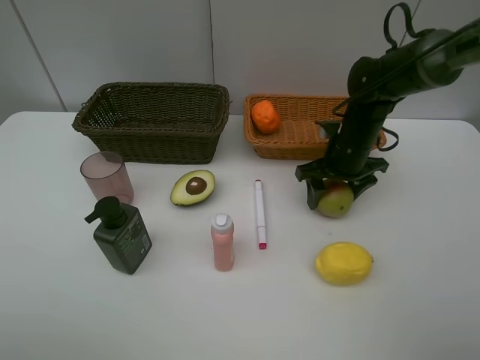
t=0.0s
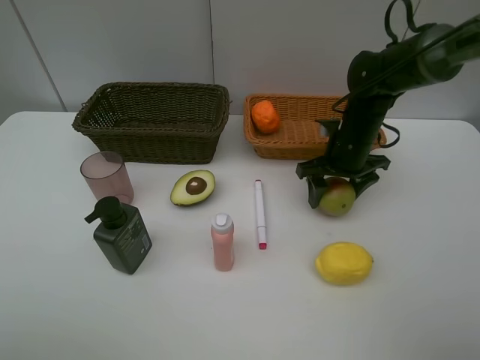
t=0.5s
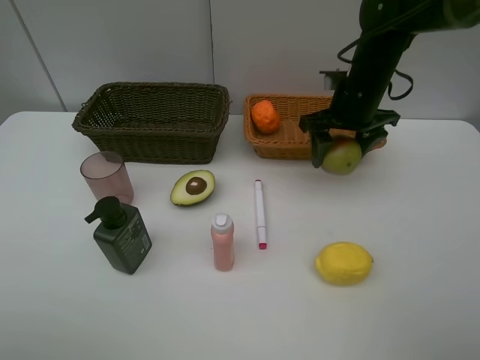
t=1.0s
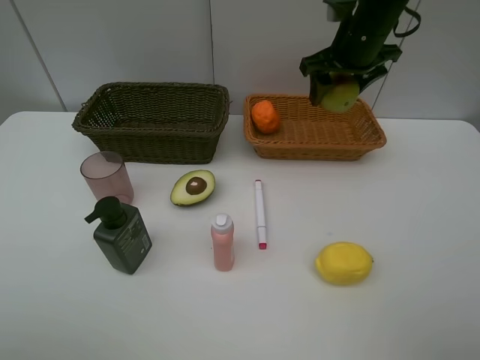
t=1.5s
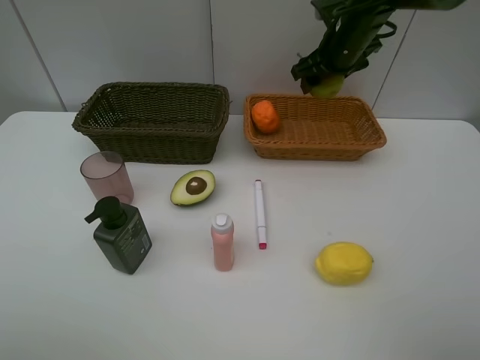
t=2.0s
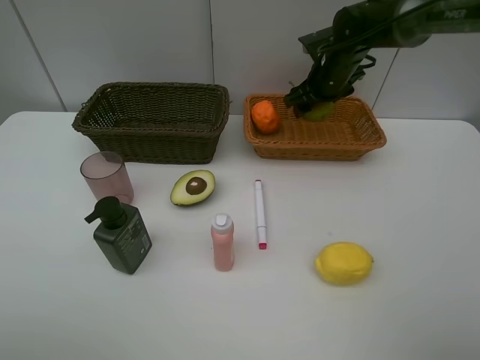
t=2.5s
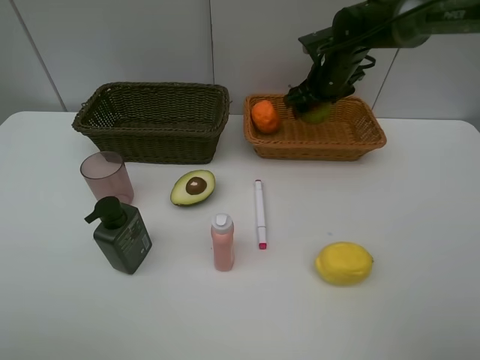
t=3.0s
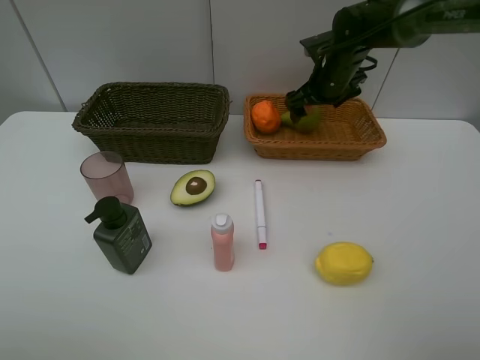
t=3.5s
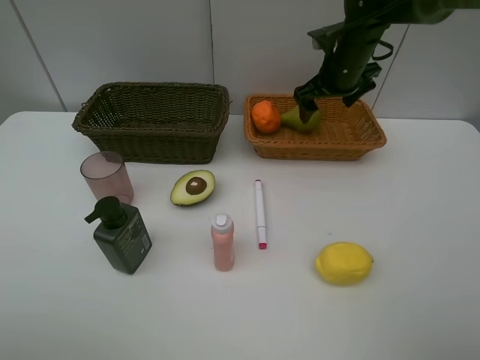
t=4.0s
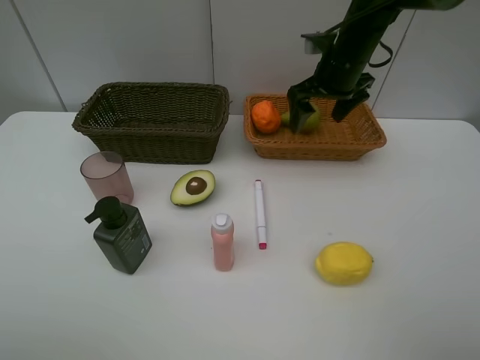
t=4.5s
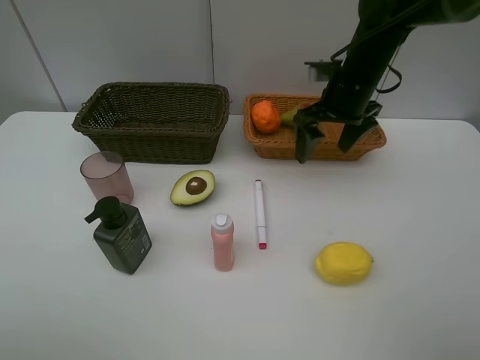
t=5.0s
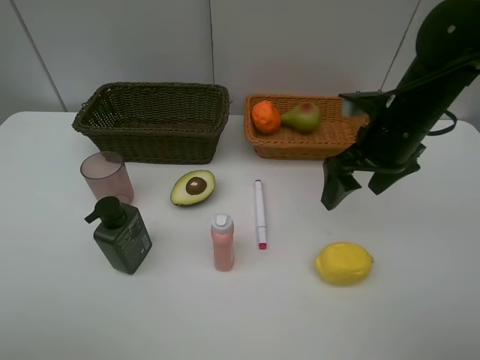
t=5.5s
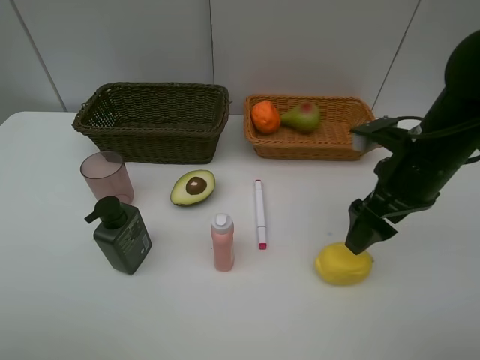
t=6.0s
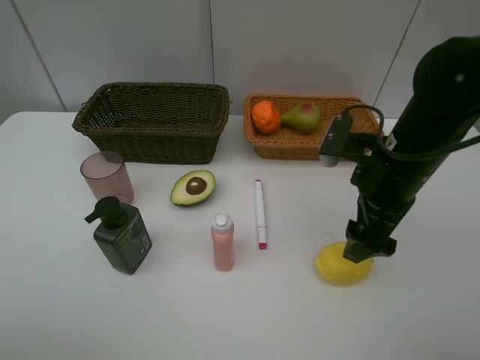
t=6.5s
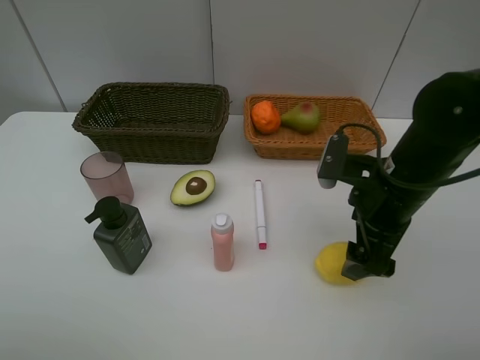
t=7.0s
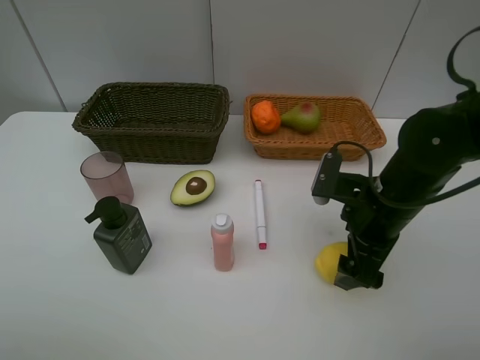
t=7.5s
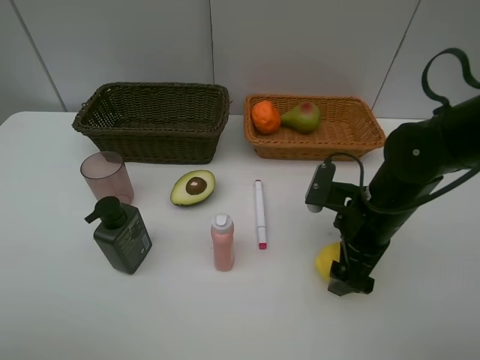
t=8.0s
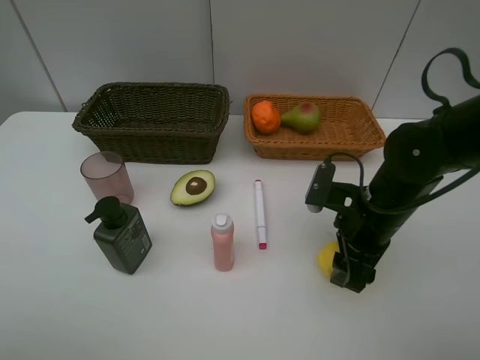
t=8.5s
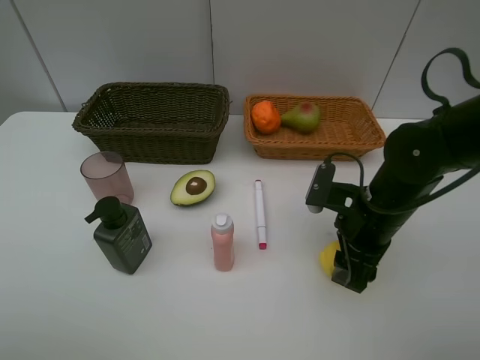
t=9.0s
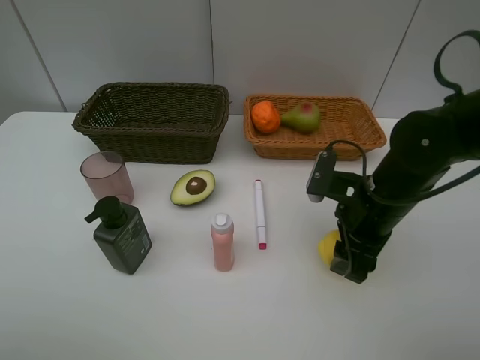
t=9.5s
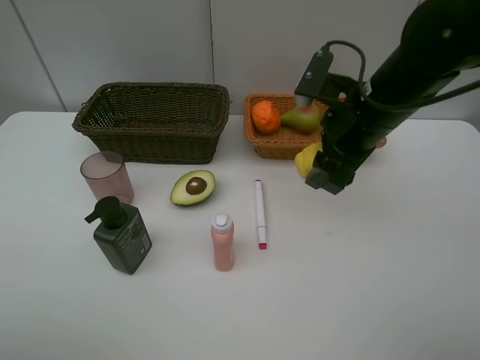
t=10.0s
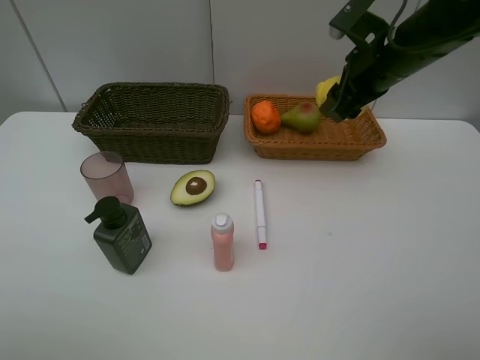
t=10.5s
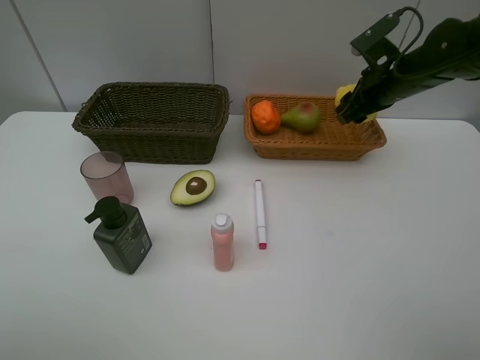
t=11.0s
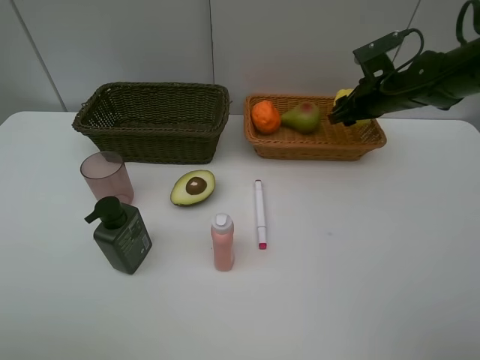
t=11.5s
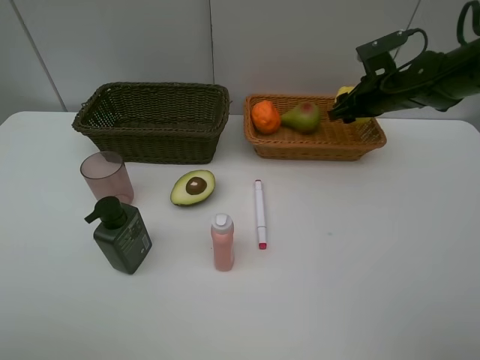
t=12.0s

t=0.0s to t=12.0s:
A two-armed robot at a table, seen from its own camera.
Task of the whole recording: Place multiple objects separately in different baskets.
Step, t=1.0s to t=3.5s: Place the pear in the light basket with right gripper.
Step, t=4.0s to t=9.5s: Pick up the lemon with right gripper.
t=0.0s to t=2.0s: The right gripper goes about 15 cm upward and forward.
t=2.0s to t=4.0s: There are only small adjustments of the grippers.
t=4.0s to t=6.0s: The right gripper goes approximately 20 cm backward.
t=6.0s to t=8.0s: The right gripper goes approximately 5 cm downward.
t=8.0s to t=10.0s: The right gripper heads upward and forward, covering some 15 cm, and closes its fingers.
t=10.0s to t=12.0s: The right gripper is displaced forward, to the right and downward by some 20 cm.

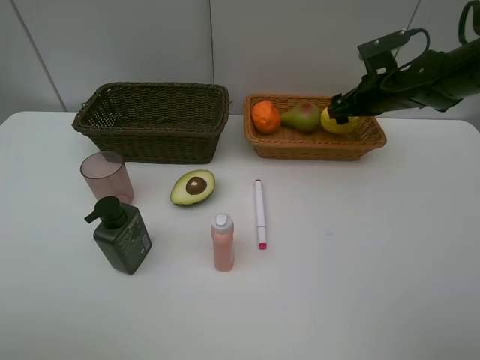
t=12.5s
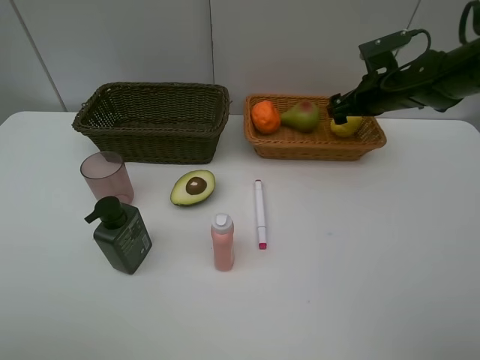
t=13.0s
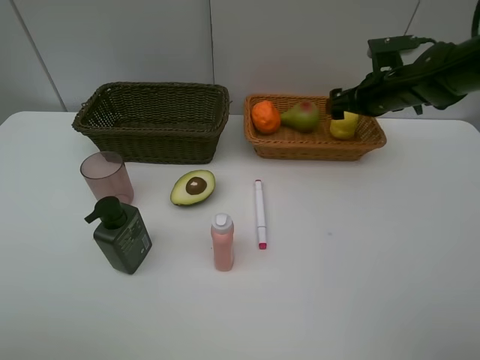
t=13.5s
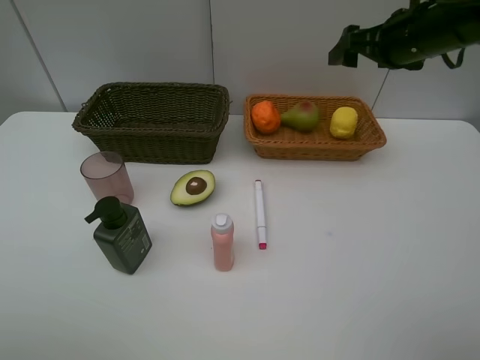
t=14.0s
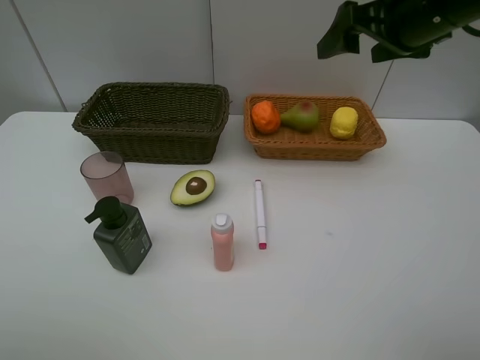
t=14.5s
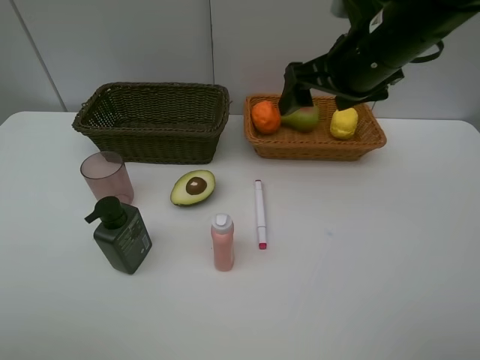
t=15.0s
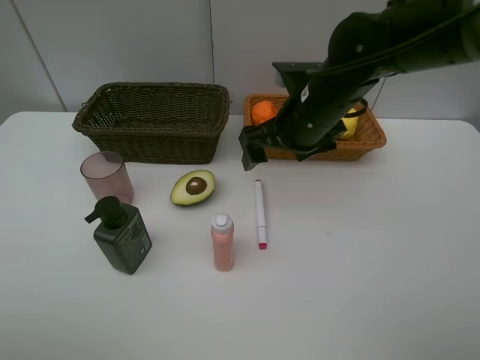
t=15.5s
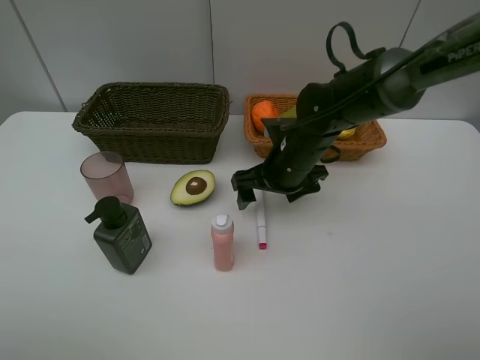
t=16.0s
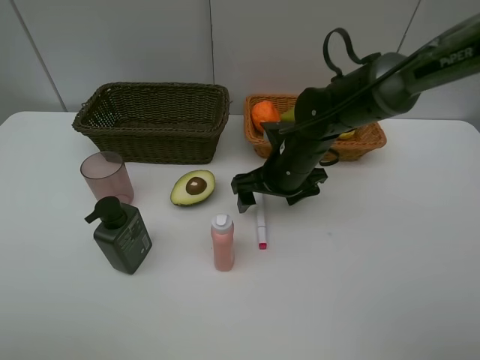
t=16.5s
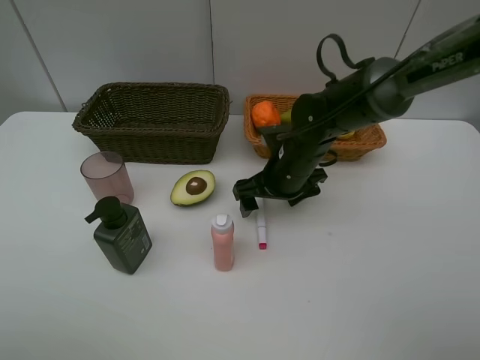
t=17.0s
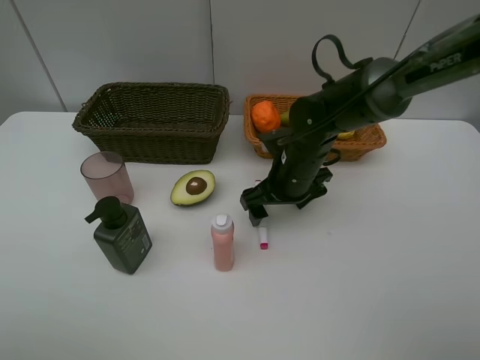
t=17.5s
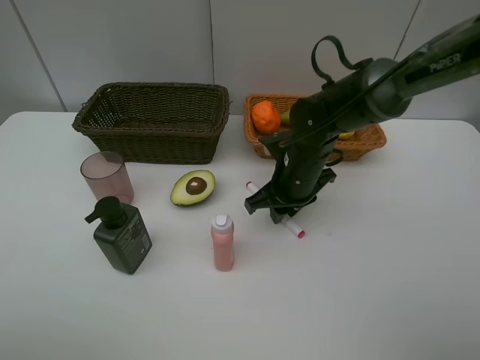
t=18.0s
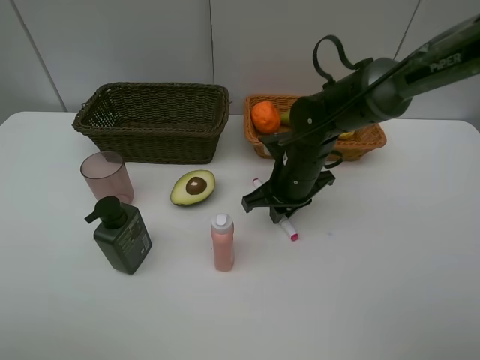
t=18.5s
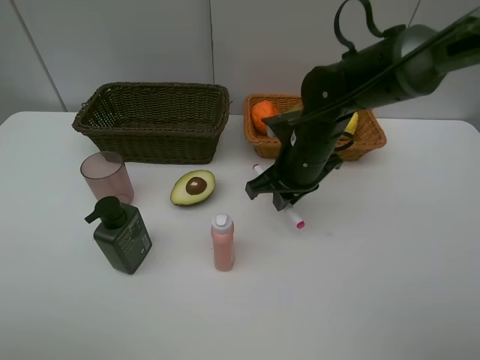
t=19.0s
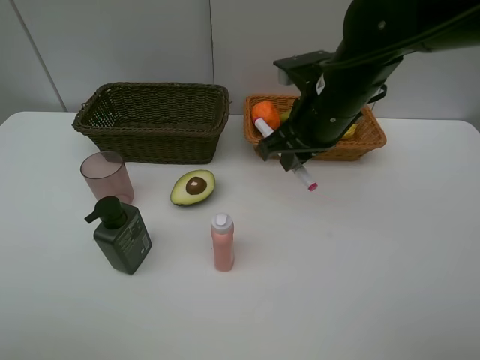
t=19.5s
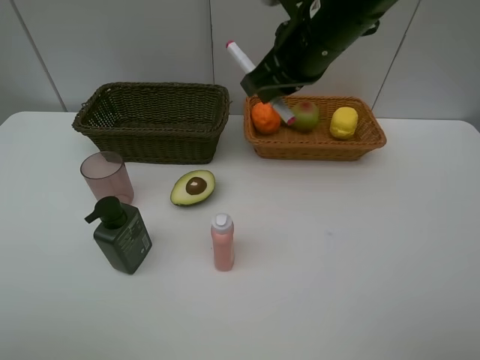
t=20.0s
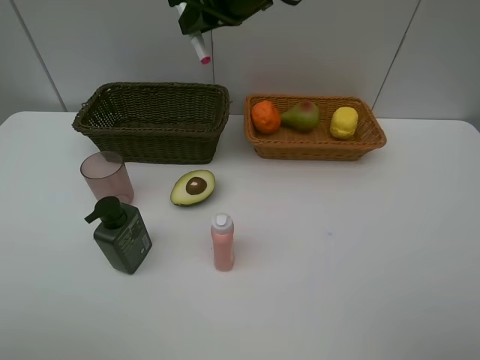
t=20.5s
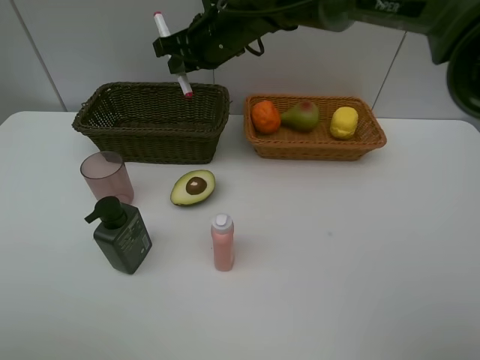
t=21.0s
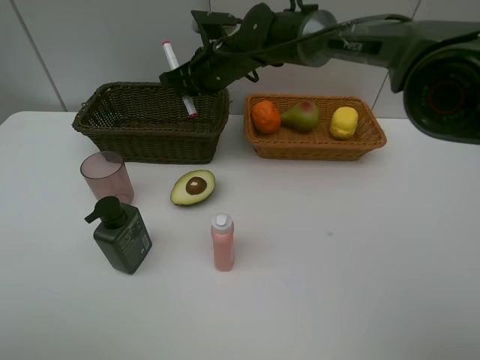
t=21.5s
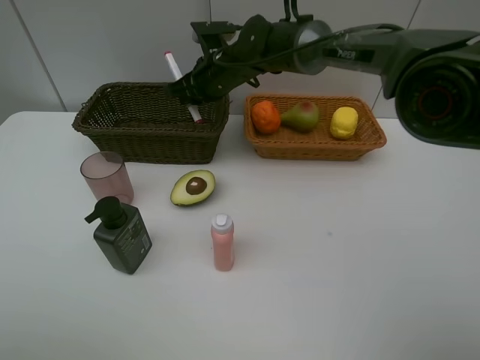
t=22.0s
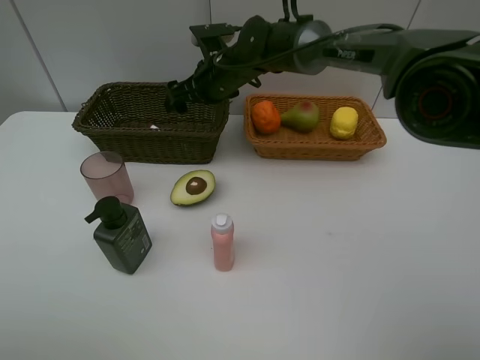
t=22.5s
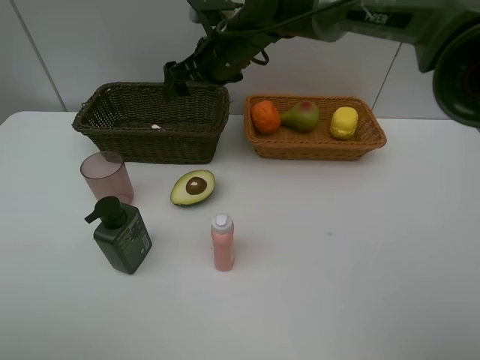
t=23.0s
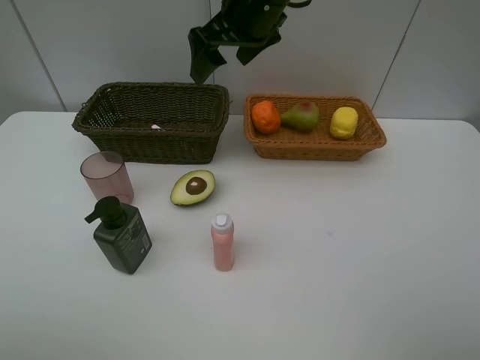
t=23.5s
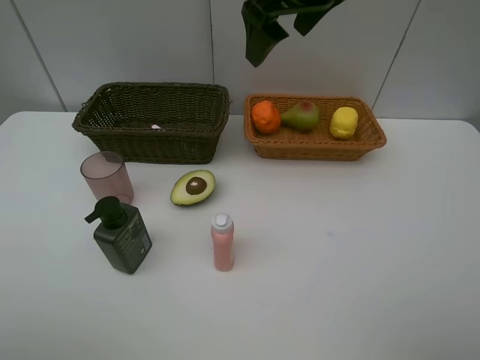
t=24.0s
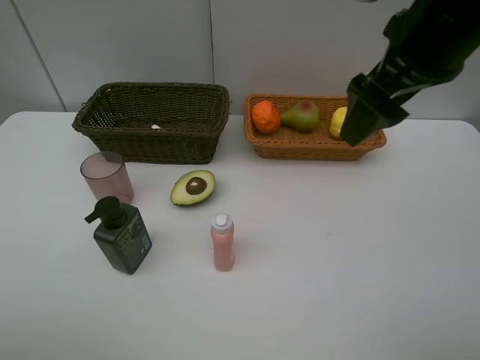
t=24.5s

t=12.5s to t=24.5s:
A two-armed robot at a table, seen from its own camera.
Task of the whole recording: Place multiple objects separately in different baskets.
Step, t=13.0s to t=19.0s: Pick up the red marker with right gripper.
Step, t=19.5s to t=22.5s: Place the red marker in the dark basket with right gripper.
t=12.5s to t=14.5s: The right gripper goes roughly 20 cm upward and backward.
t=14.5s to t=16.5s: The right gripper shifts roughly 25 cm downward and to the left.
t=16.5s to t=18.5s: The right gripper closes up.
t=18.5s to t=20.5s: The right gripper travels upward by some 25 cm.
t=20.5s to t=22.5s: The right gripper shifts about 15 cm downward and forward, and opens up.
t=22.5s to t=24.5s: The right gripper is displaced backward, to the right and upward by about 35 cm.

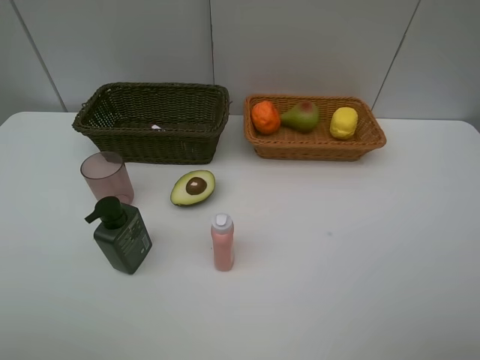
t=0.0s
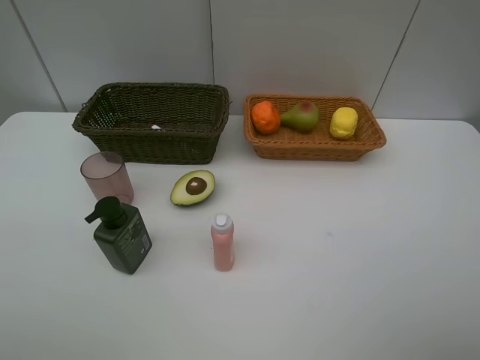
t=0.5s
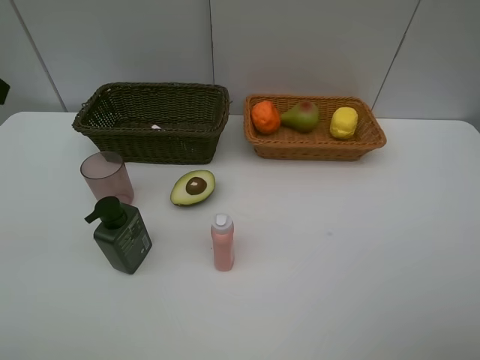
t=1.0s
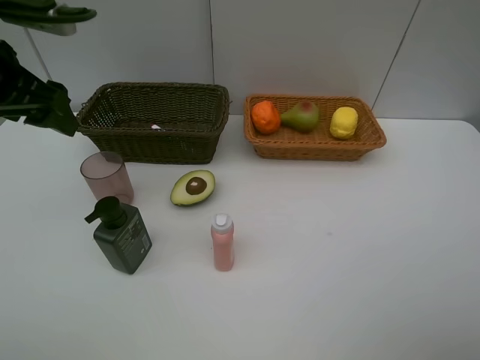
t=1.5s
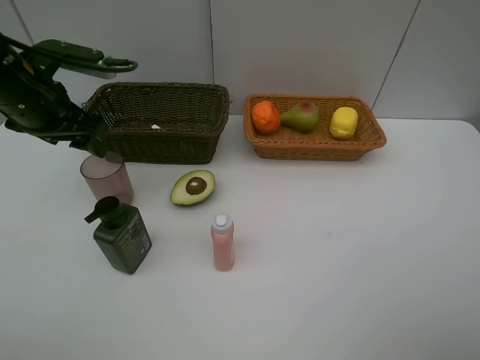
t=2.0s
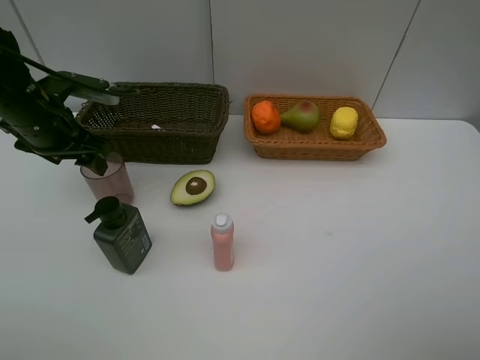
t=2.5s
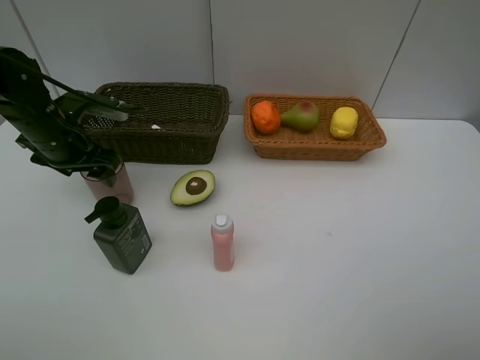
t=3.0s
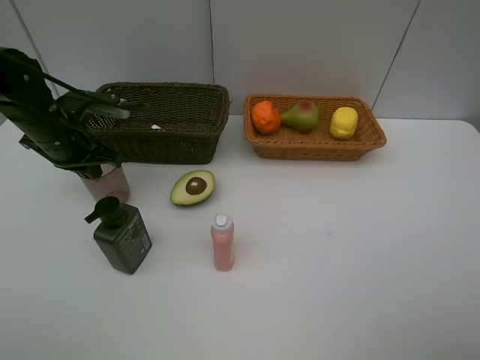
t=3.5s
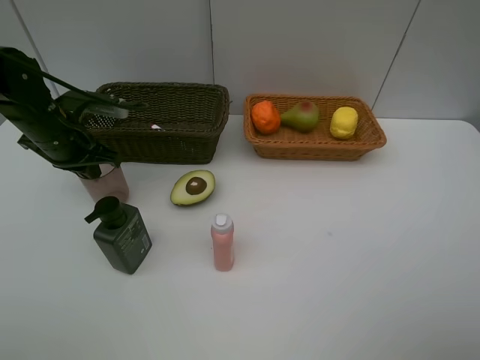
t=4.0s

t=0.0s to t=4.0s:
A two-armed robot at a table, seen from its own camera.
Task of the whole recording: Place multiple objects separately in different baskets.
t=0.0s to t=2.0s: The left gripper is displaced forward by about 30 cm.
t=2.0s to t=4.0s: The left gripper travels downward by approximately 5 cm, and closes.
